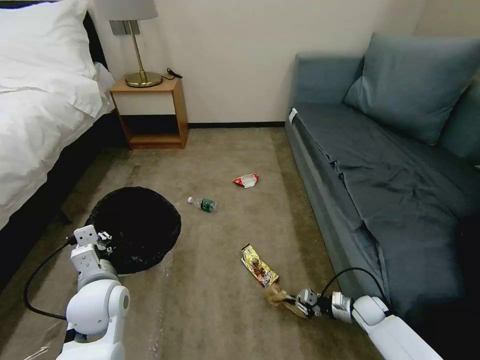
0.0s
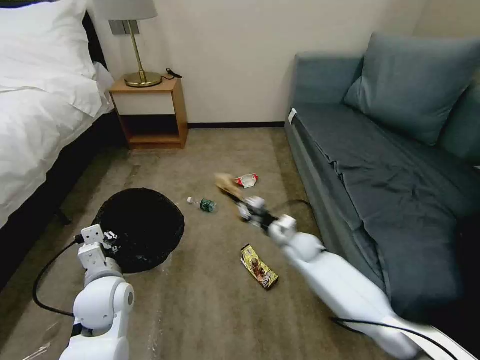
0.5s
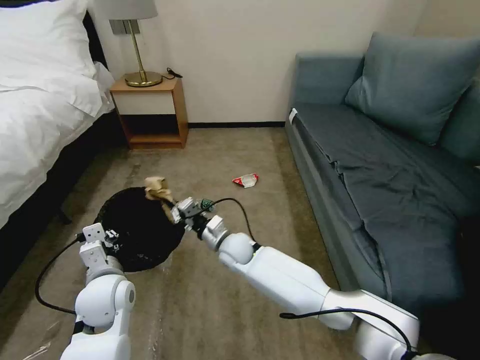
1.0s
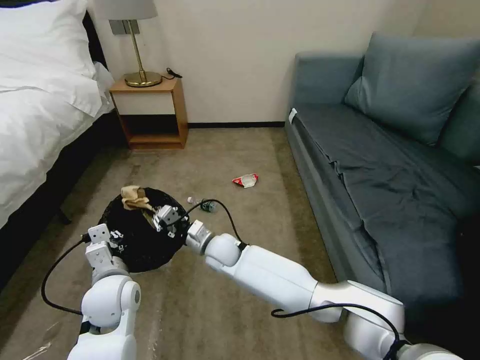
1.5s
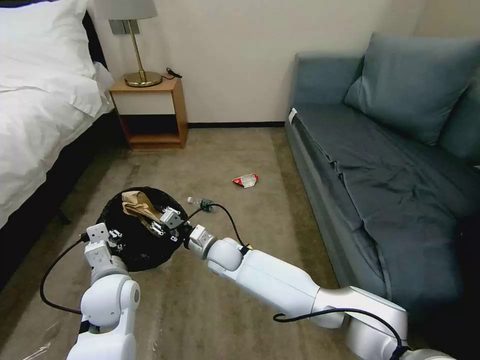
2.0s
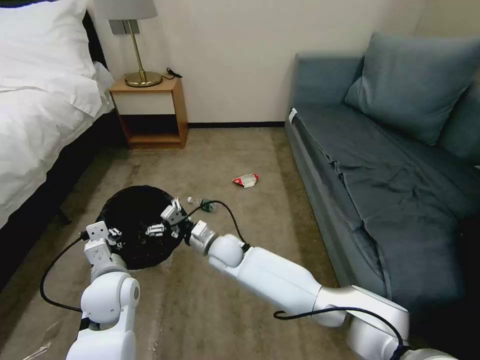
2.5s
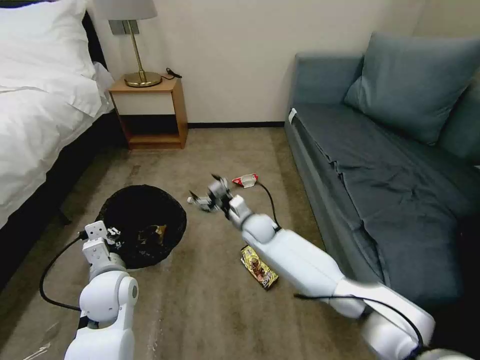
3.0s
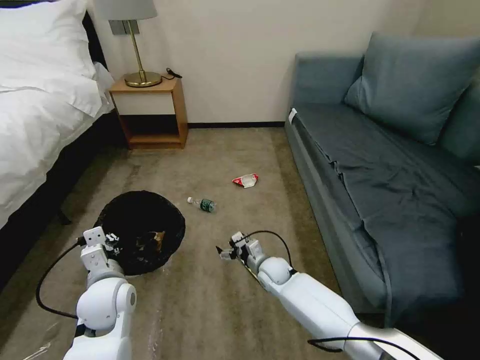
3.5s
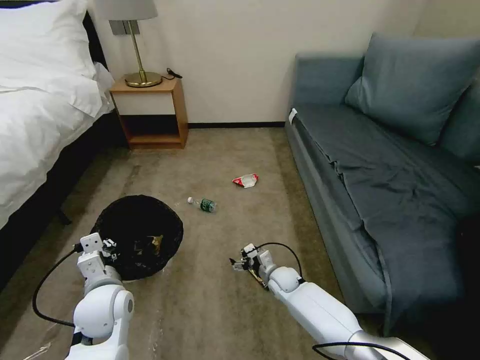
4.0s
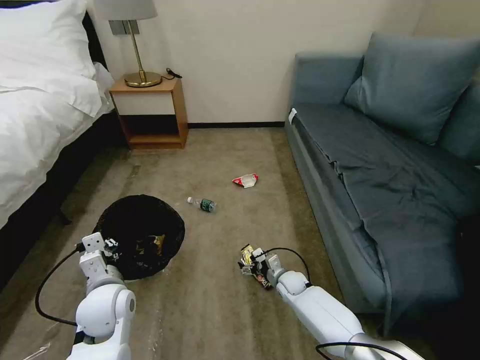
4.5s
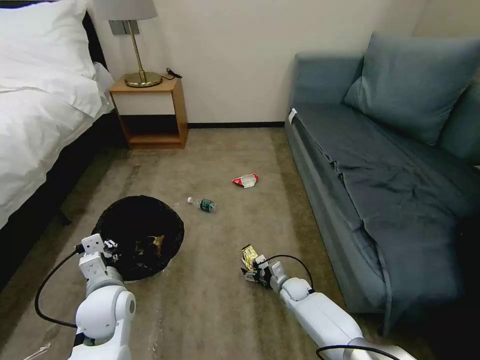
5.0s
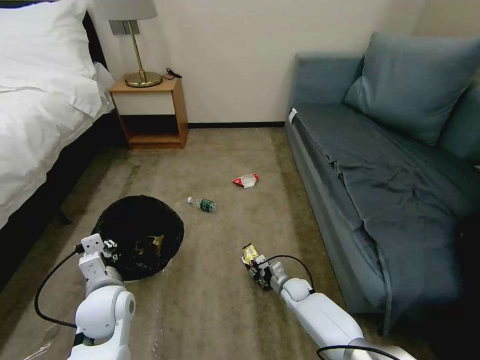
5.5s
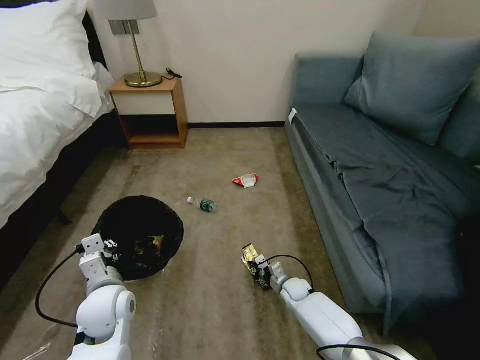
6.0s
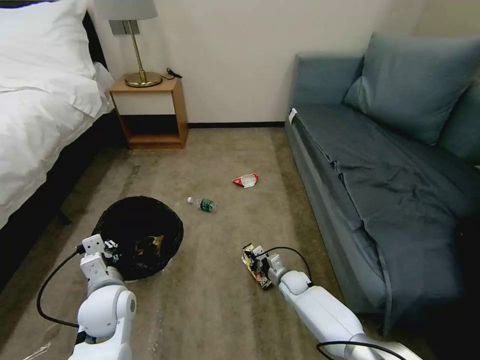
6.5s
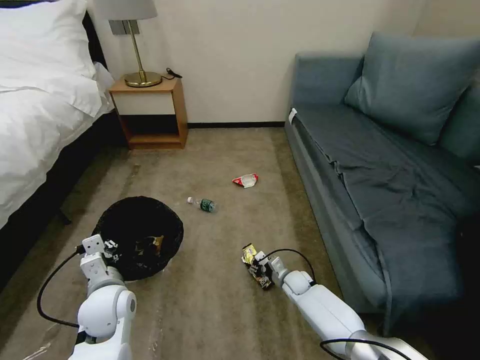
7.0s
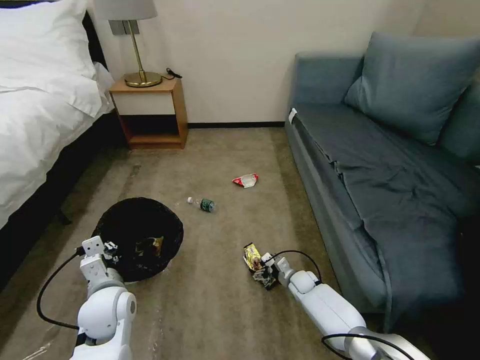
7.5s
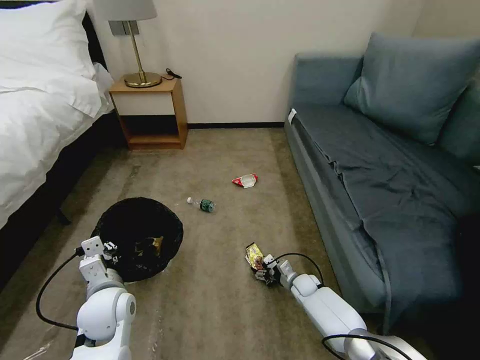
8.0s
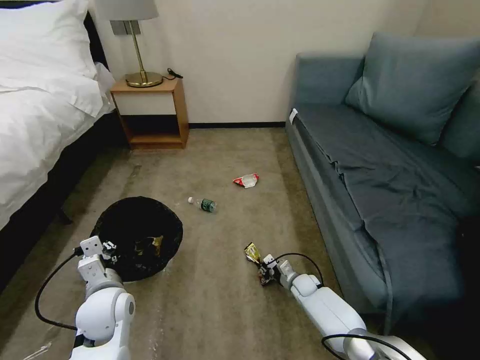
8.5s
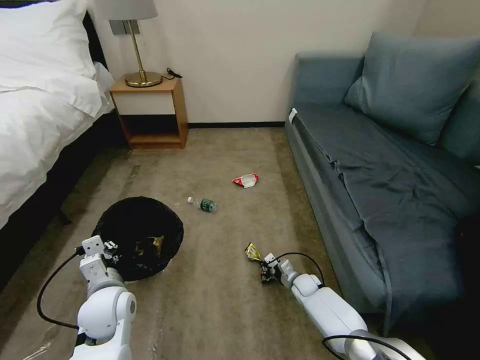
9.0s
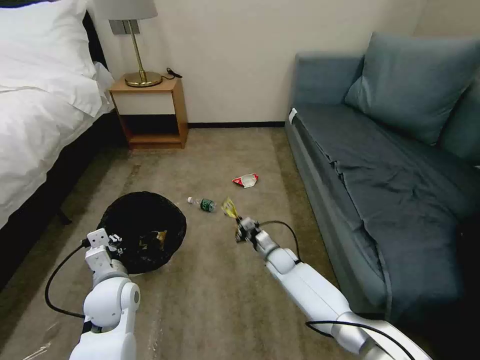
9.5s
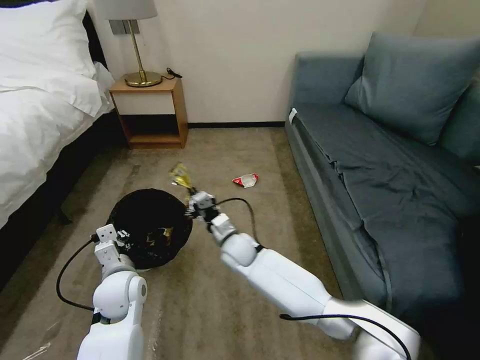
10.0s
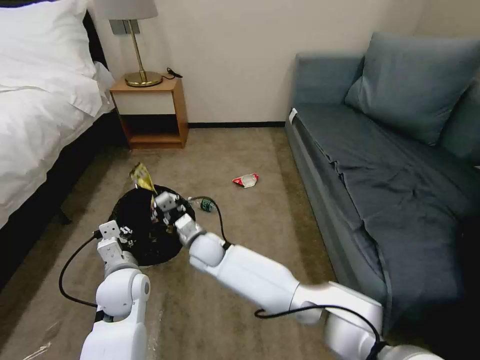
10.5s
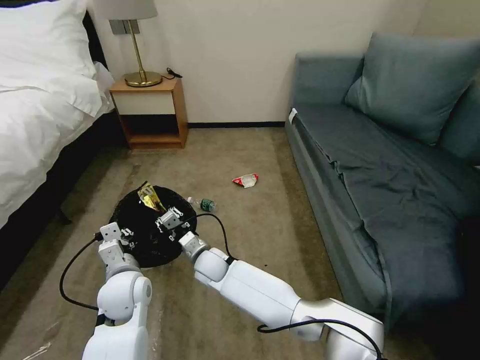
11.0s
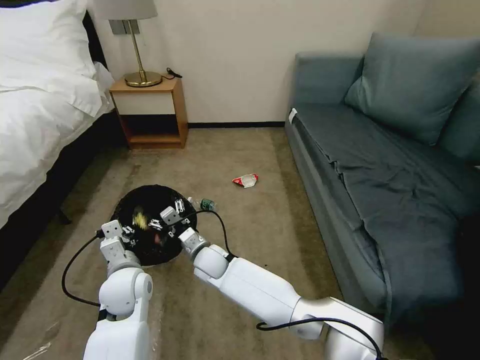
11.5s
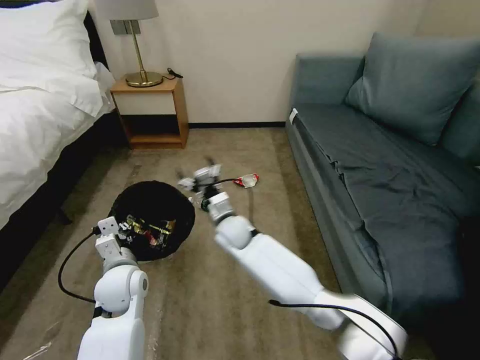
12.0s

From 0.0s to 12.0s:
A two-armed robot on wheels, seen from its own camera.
Task of the whole recording: Pick up the trash bin, then pick up the garbage on the floor and place it into the trash bin.
From 0.0s to 2.0s: The right gripper moves to the left, some 40 cm, and opens its fingers.
From 2.0s to 4.0s: The right gripper is displaced to the right and downward by some 25 cm, and opens its fingers.
From 4.0s to 6.0s: The right gripper goes approximately 5 cm downward, and closes its fingers.
From 6.0s to 8.0s: The right gripper opens its fingers.
From 8.0s to 10.0s: The right gripper heads to the left and upward, covering about 30 cm, and closes.
From 10.0s to 12.0s: The right gripper reaches about 10 cm to the left, then returns, and opens its fingers.

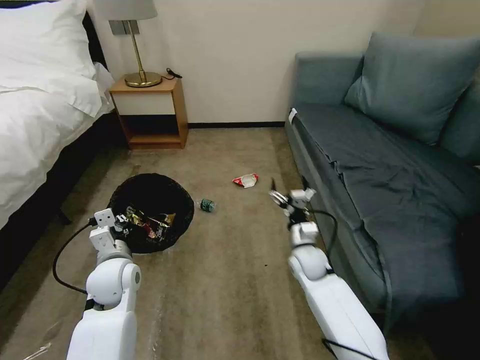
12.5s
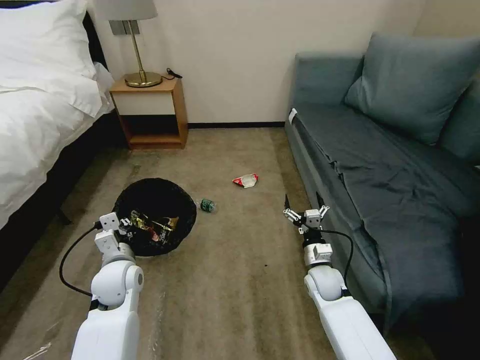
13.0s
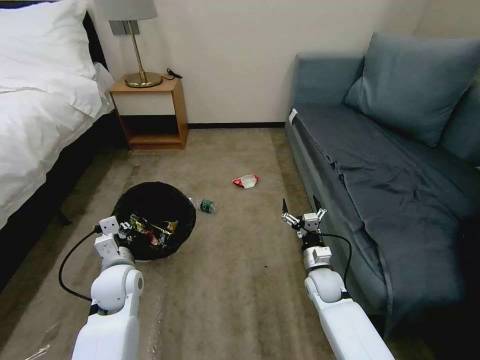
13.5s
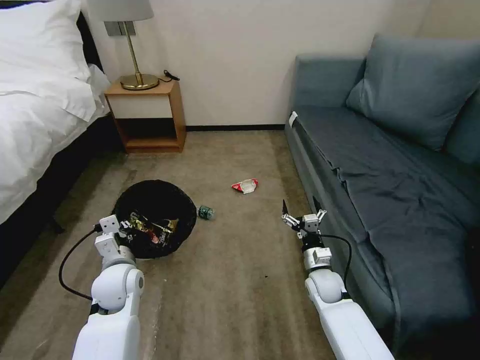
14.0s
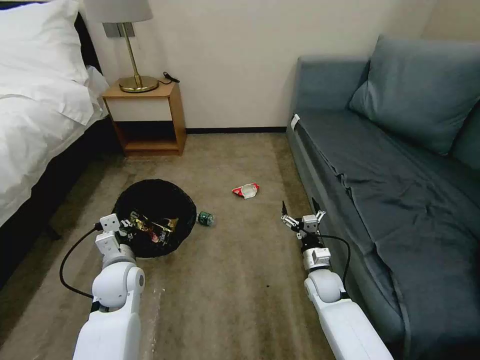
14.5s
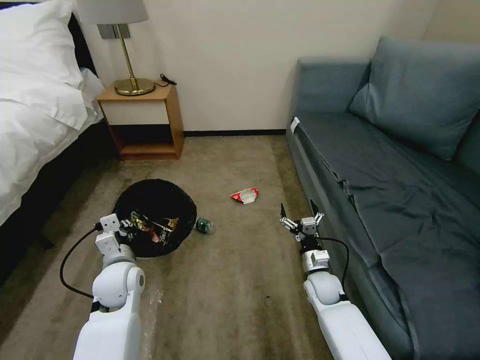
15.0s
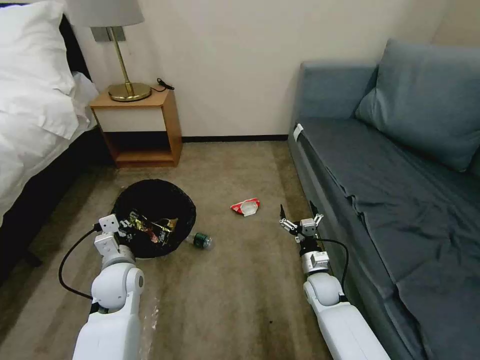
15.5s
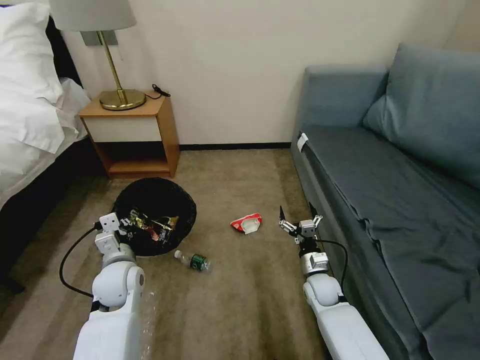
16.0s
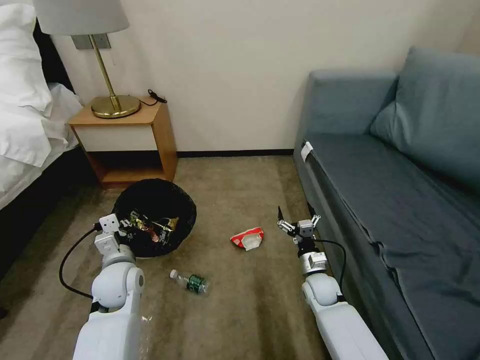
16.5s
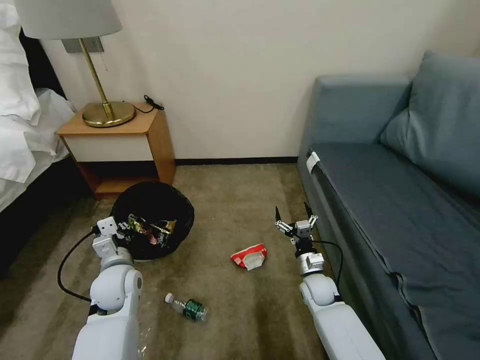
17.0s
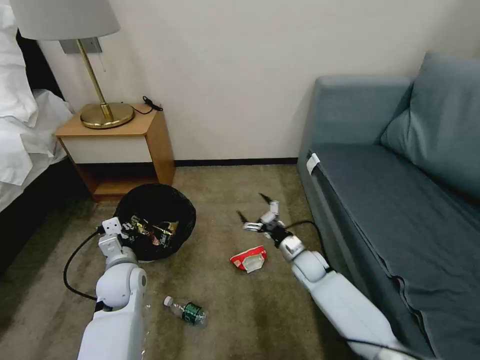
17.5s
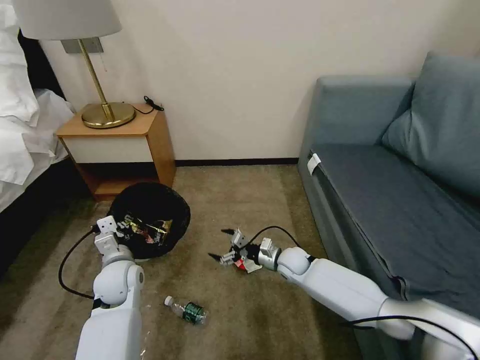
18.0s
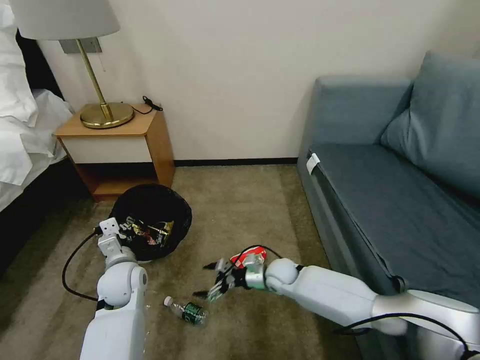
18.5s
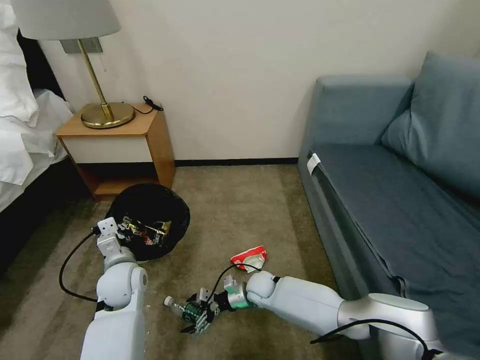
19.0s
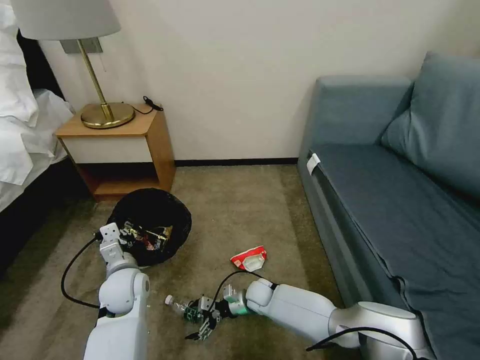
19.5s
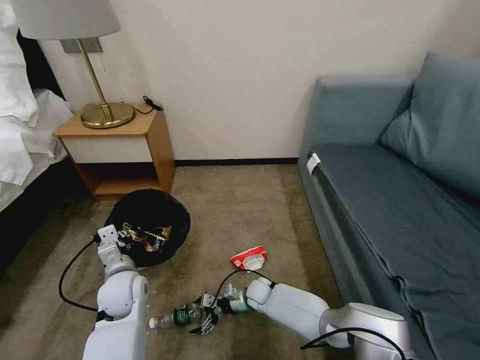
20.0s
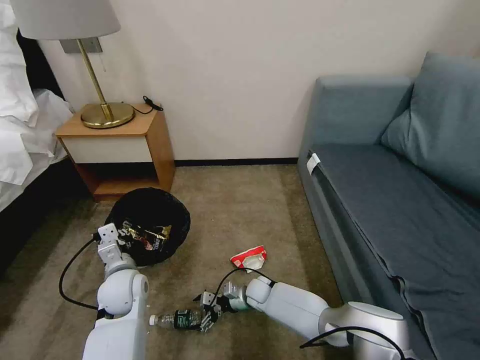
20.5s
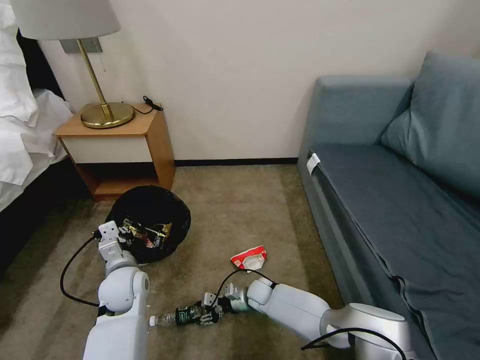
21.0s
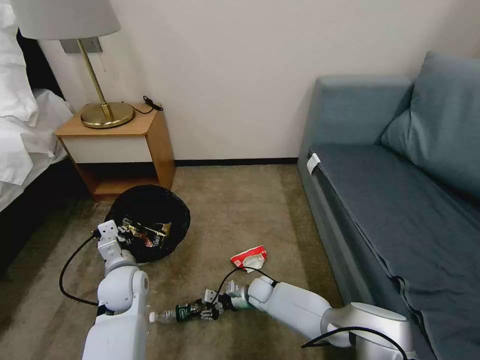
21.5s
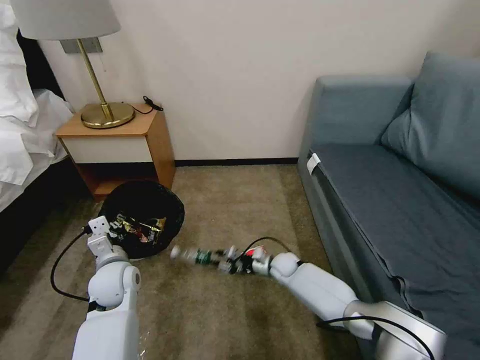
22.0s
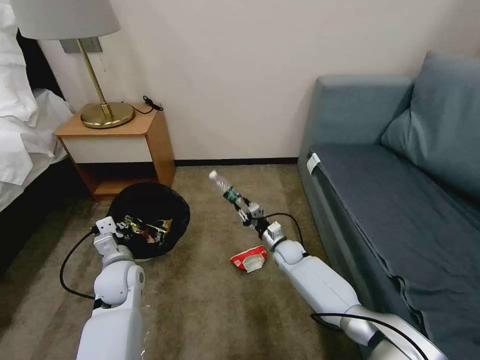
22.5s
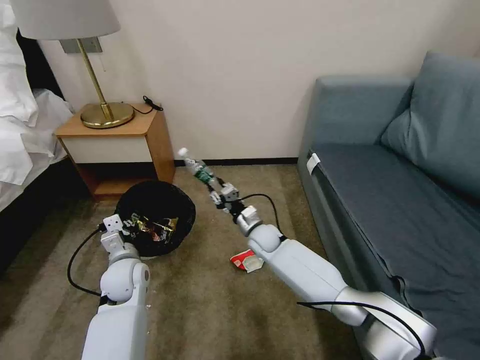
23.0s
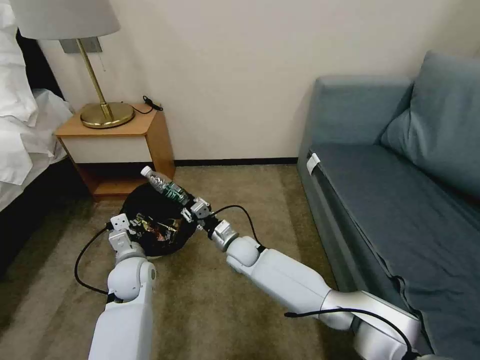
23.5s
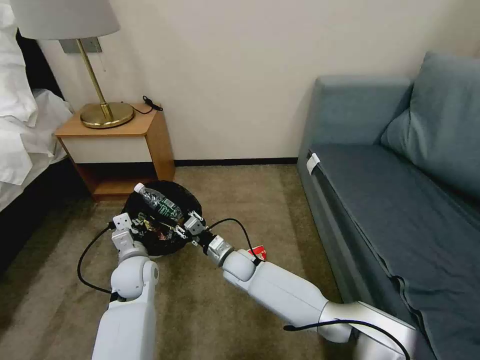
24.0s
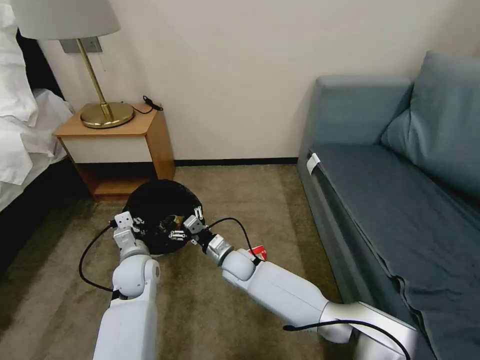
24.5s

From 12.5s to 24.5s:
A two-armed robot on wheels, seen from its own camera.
Task of the whole recording: Pick up the trash bin, then pick up the garbage on the floor and place it into the trash bin.
From 12.5s to 14.5s: The right gripper is displaced downward by roughly 5 cm.
From 16.5s to 18.5s: The right gripper goes about 10 cm to the left.
From 18.5s to 20.5s: The right gripper is displaced downward and to the left by about 10 cm.
From 20.5s to 22.5s: The right gripper moves upward, to the right and forward, about 15 cm, and closes.
From 22.5s to 24.5s: The right gripper heads to the left and backward, covering roughly 15 cm, and opens.

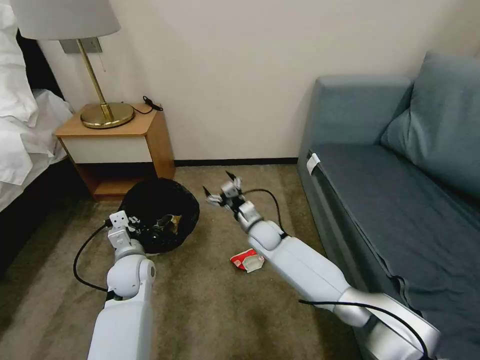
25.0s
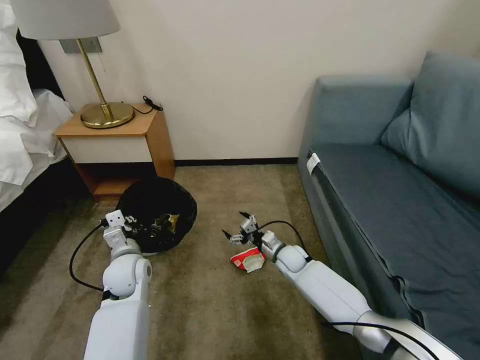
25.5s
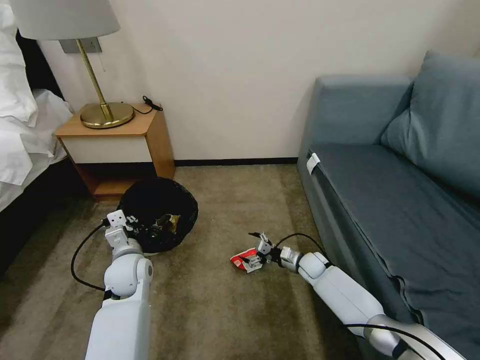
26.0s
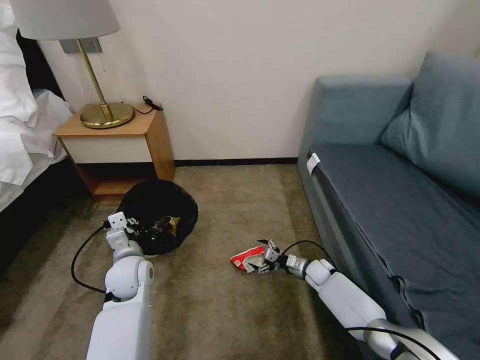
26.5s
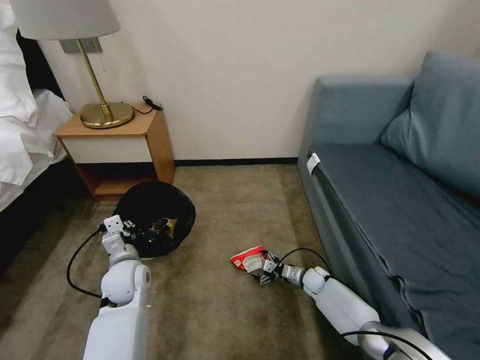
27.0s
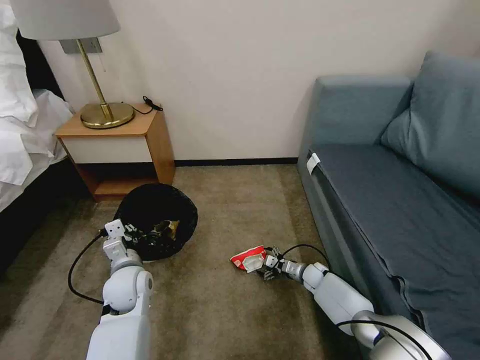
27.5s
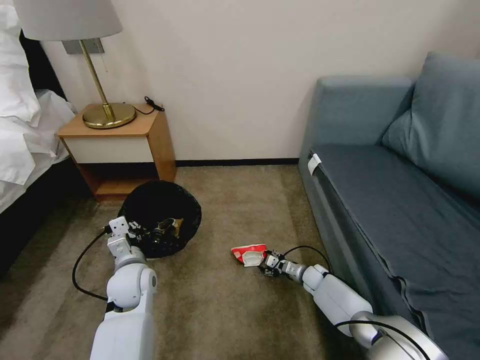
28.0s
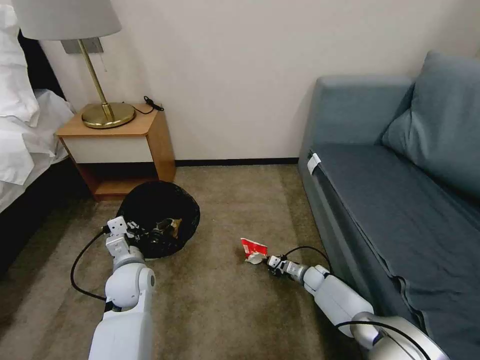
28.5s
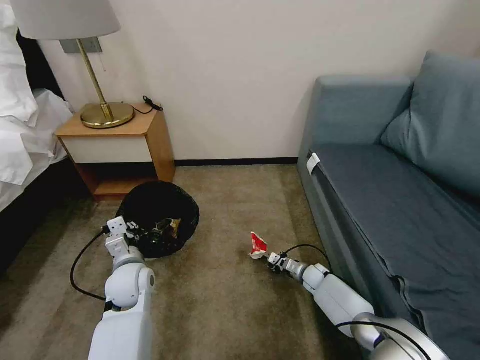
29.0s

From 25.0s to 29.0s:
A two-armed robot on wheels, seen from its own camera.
Task of the whole recording: Pick up the trash bin, then pick up the garbage on the floor and place it into the trash bin.
From 25.0s to 27.0s: The right gripper is displaced to the right and downward by about 25 cm.
From 27.0s to 29.0s: The right gripper closes up.
